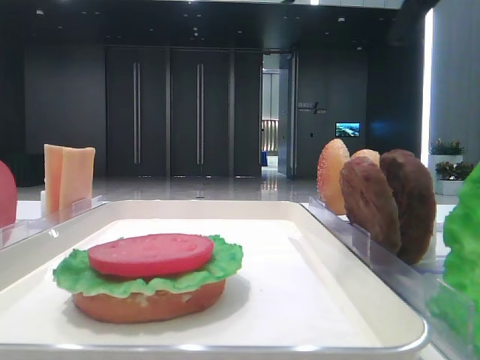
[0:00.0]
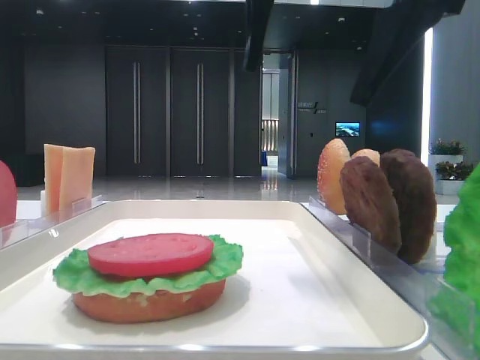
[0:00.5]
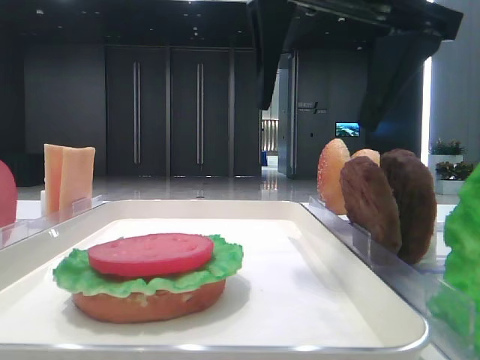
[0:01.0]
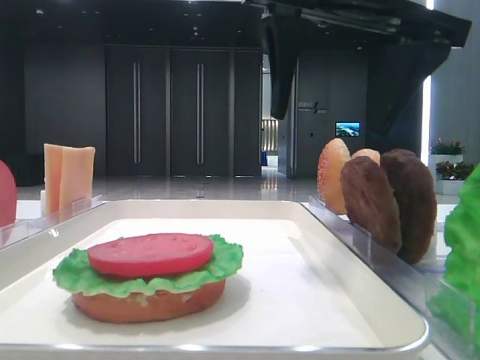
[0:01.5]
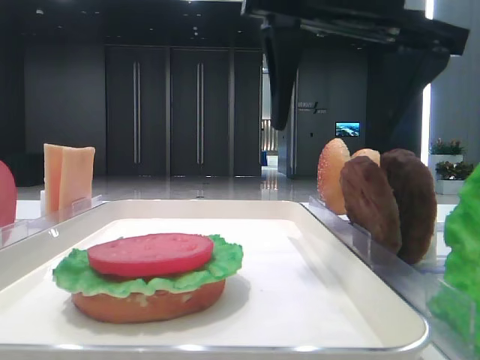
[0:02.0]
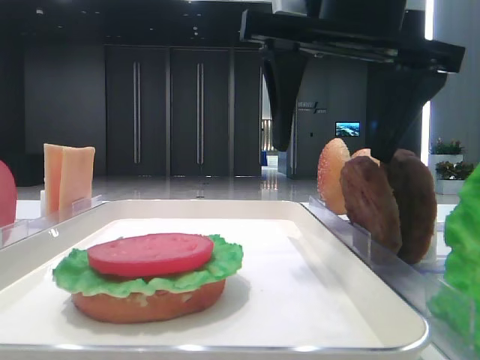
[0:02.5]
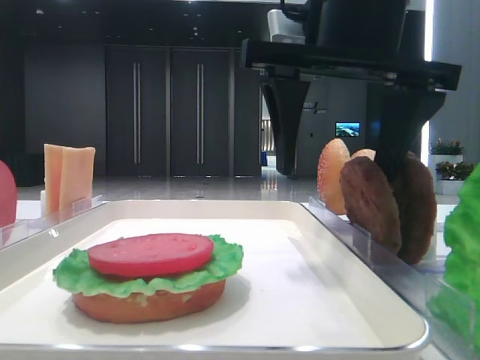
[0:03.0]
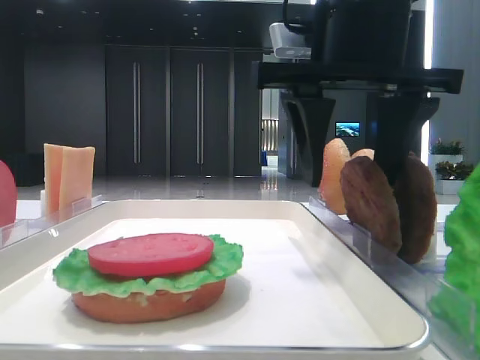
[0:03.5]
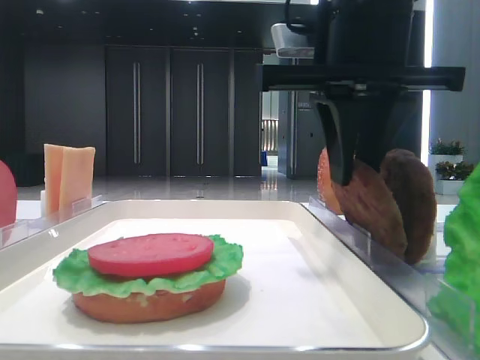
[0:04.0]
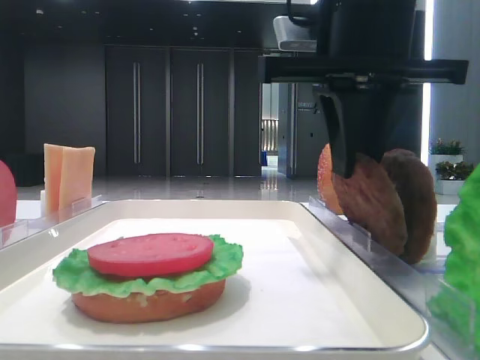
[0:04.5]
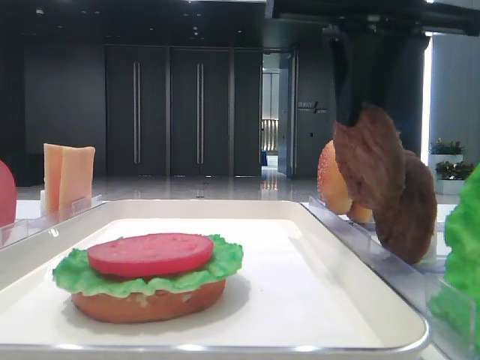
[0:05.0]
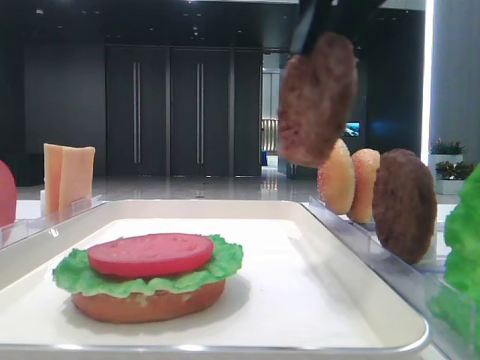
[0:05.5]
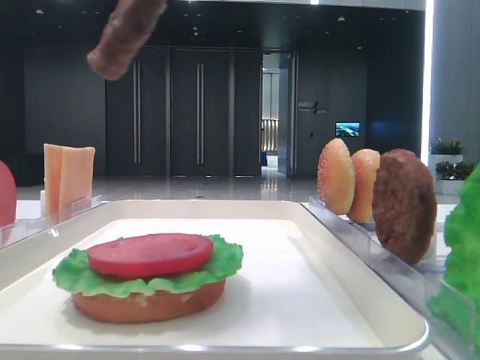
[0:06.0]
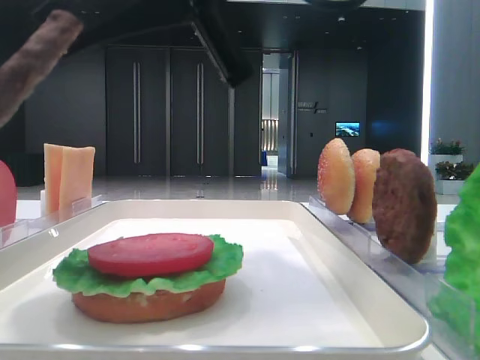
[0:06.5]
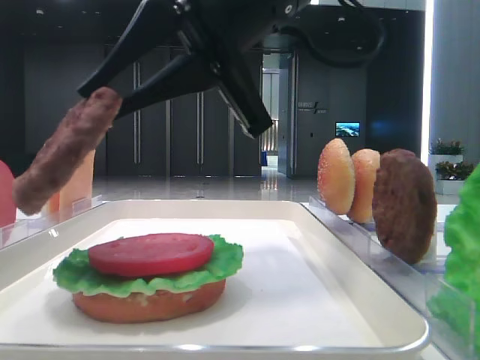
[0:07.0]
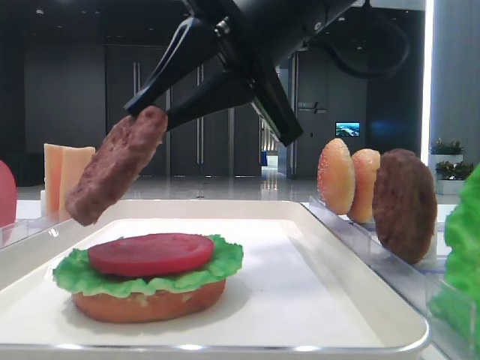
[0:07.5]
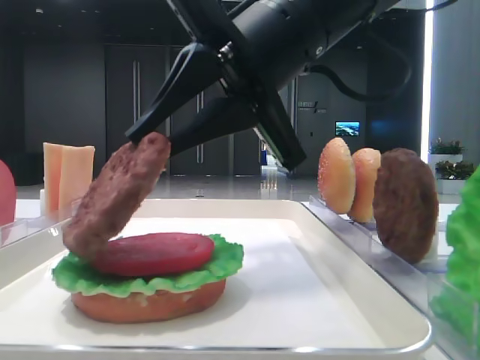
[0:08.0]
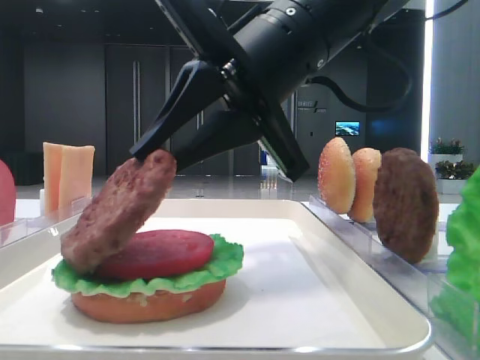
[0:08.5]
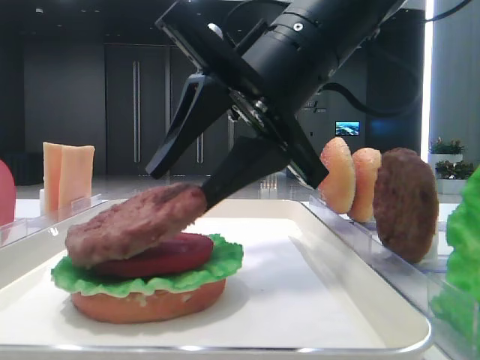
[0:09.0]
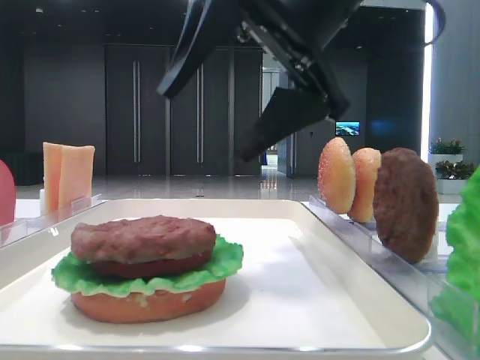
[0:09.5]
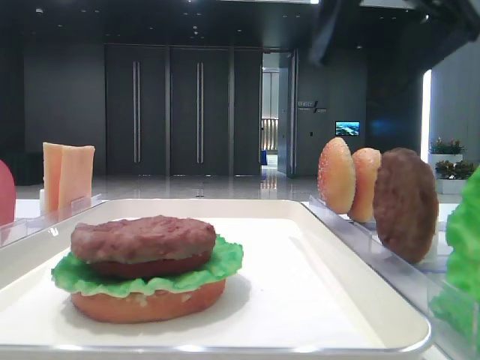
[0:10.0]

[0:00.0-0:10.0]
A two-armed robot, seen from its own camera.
Step, 0:00.0 to 0:04.0: Grab the patty with the right hand.
Step, 0:04.5 to 0:09.0: Place the patty on the tomato slice with the right hand.
0:00.0 to 0:02.0: The right gripper shifts about 5 cm downward.
0:02.0 to 0:04.0: The right gripper closes.
0:04.0 to 0:06.0: The right gripper shifts roughly 10 cm upward and backward.
0:06.0 to 0:08.0: The right gripper goes about 15 cm downward and forward.
0:08.0 to 0:10.0: The right gripper shifts approximately 15 cm to the right and upward, and opens up.

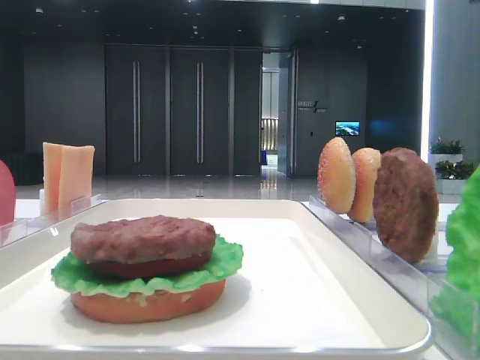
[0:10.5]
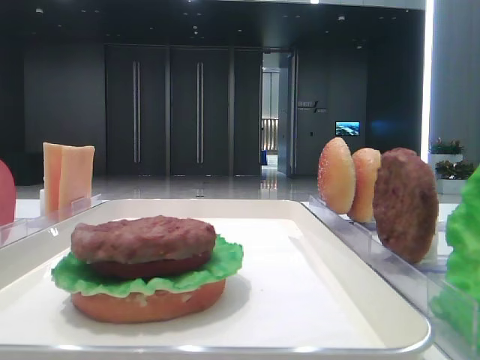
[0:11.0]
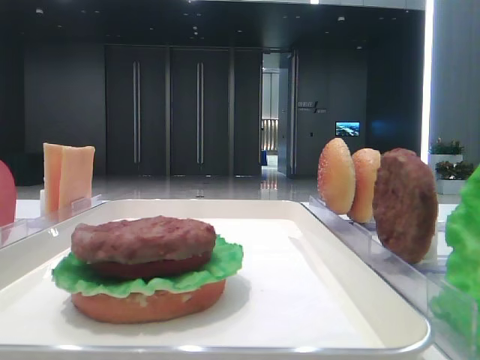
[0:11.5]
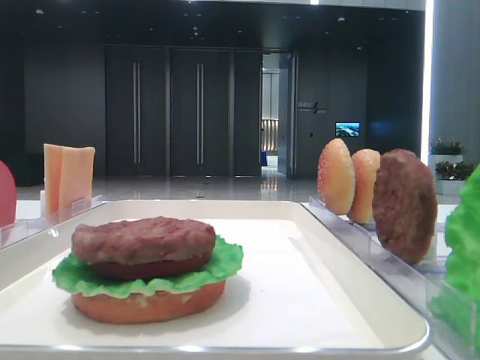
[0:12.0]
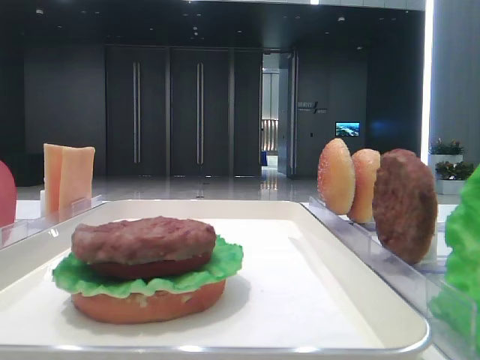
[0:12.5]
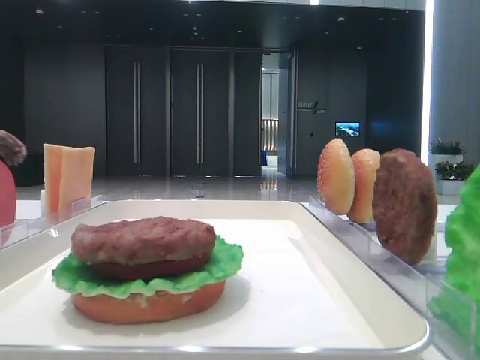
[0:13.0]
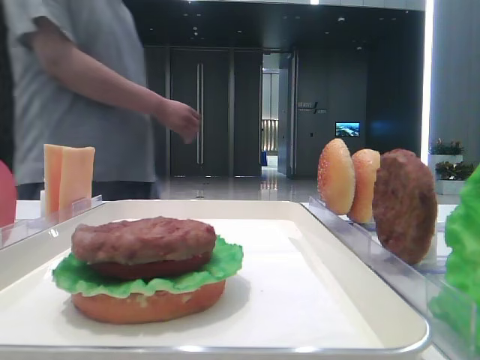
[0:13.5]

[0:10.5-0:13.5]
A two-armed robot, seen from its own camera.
0:10.5 to 0:12.0: The right gripper moves backward, some 25 cm.
0:12.0 to 0:13.5: There are only small adjustments of the grippers.
